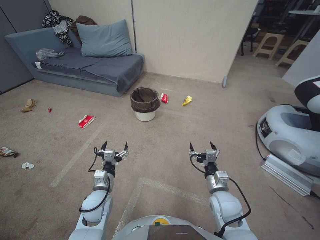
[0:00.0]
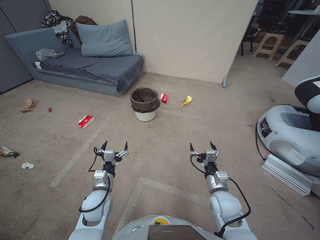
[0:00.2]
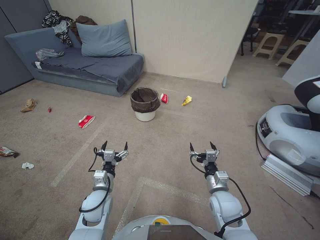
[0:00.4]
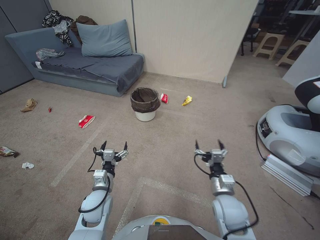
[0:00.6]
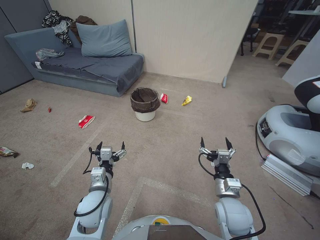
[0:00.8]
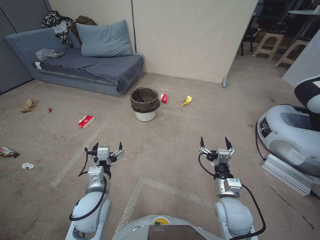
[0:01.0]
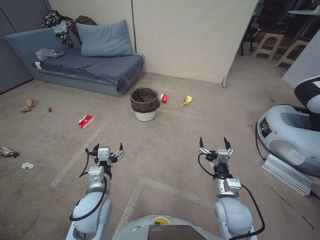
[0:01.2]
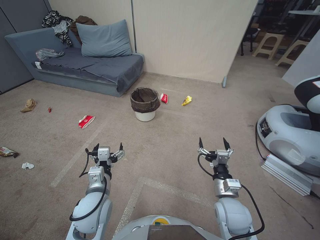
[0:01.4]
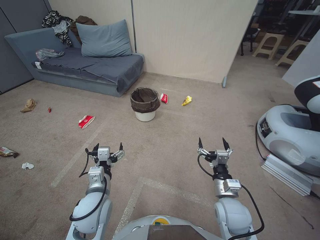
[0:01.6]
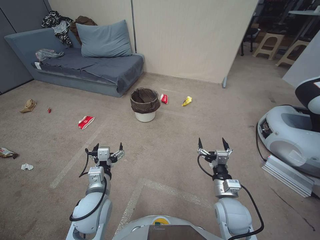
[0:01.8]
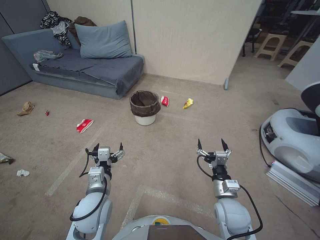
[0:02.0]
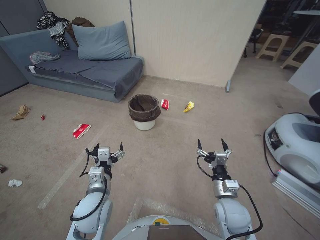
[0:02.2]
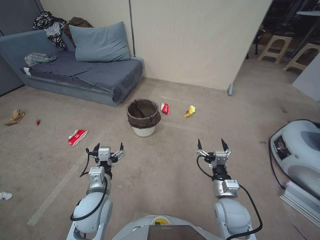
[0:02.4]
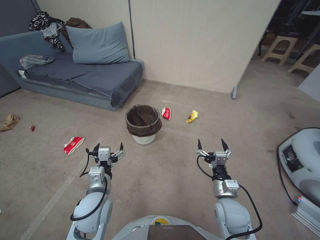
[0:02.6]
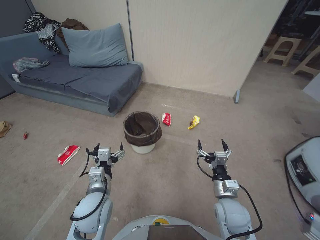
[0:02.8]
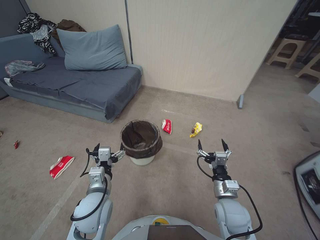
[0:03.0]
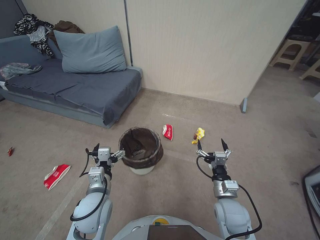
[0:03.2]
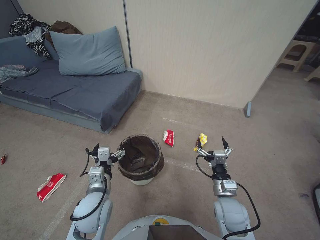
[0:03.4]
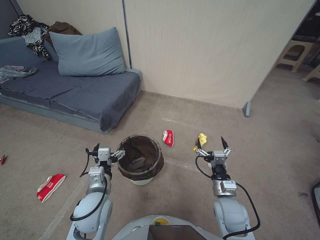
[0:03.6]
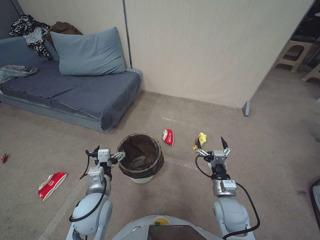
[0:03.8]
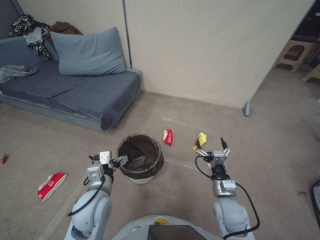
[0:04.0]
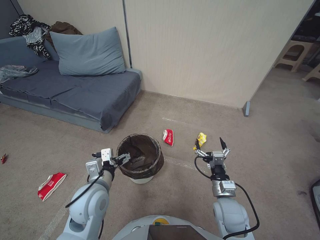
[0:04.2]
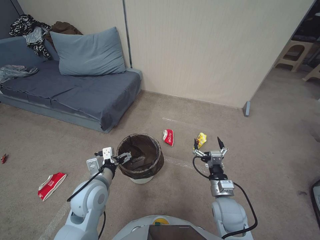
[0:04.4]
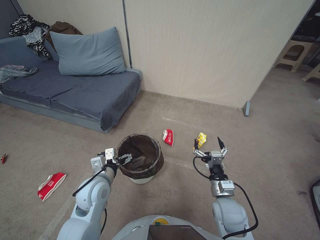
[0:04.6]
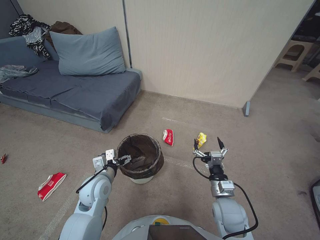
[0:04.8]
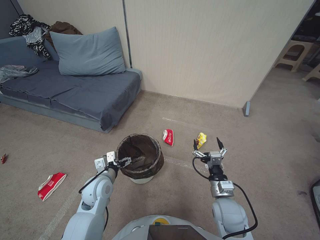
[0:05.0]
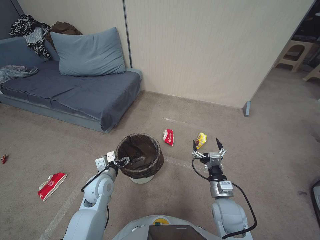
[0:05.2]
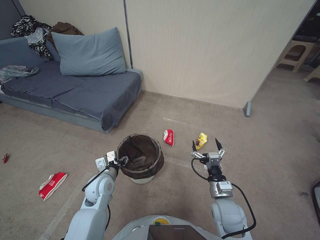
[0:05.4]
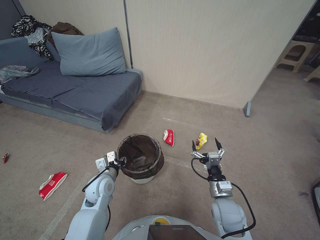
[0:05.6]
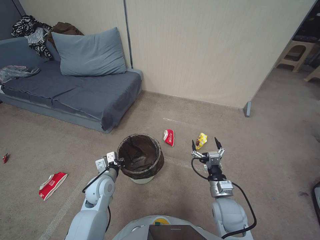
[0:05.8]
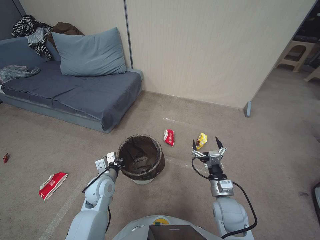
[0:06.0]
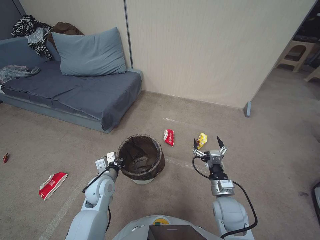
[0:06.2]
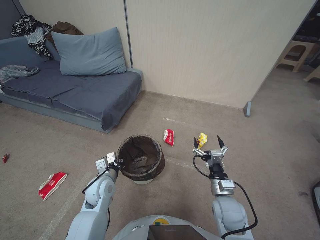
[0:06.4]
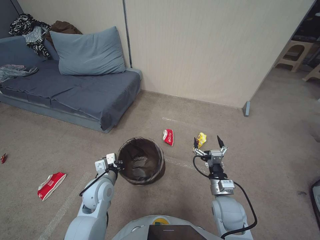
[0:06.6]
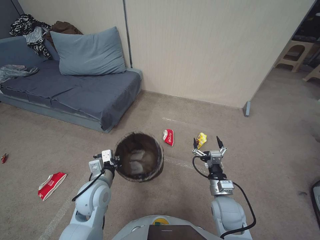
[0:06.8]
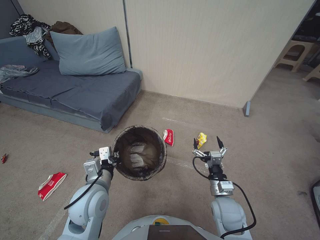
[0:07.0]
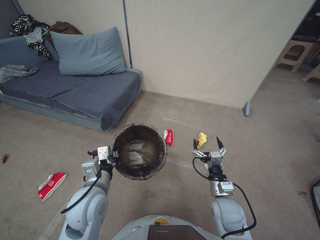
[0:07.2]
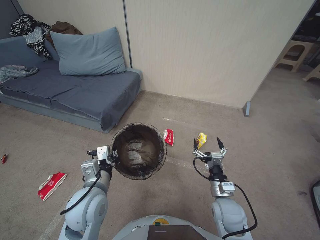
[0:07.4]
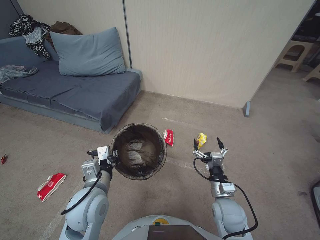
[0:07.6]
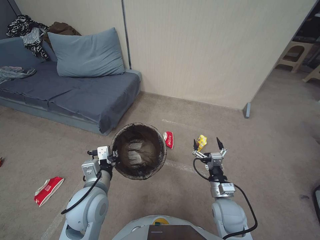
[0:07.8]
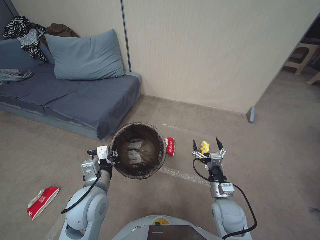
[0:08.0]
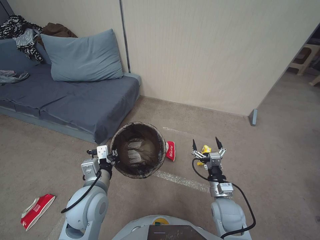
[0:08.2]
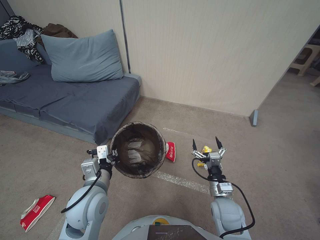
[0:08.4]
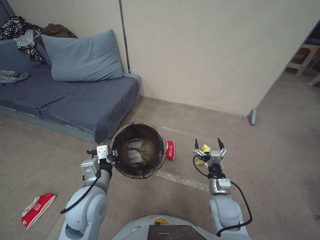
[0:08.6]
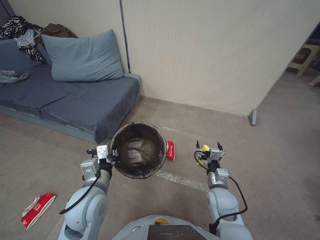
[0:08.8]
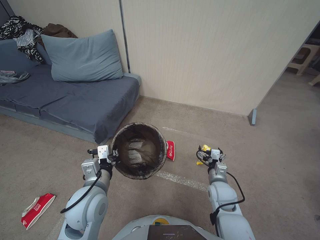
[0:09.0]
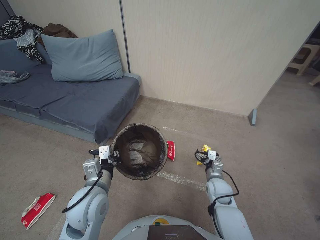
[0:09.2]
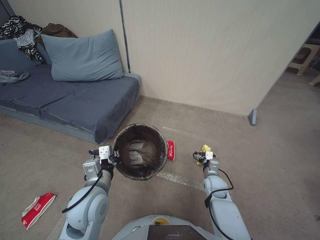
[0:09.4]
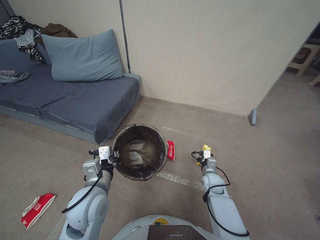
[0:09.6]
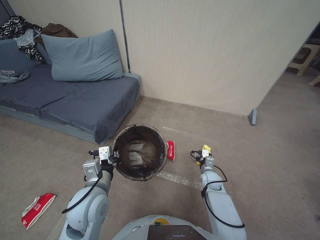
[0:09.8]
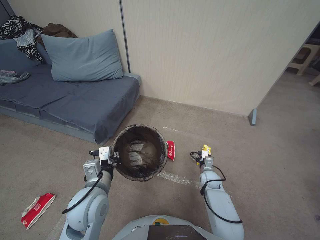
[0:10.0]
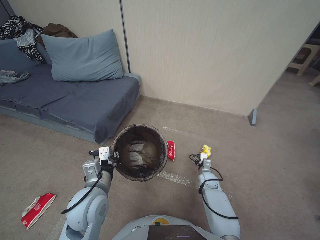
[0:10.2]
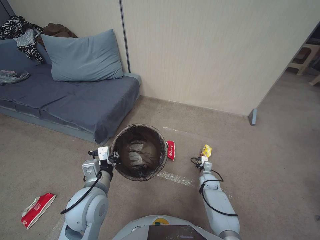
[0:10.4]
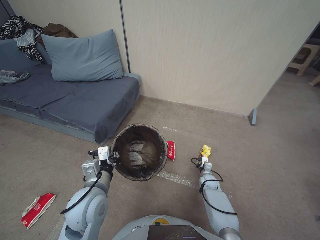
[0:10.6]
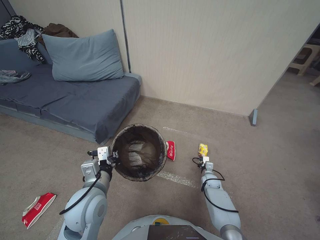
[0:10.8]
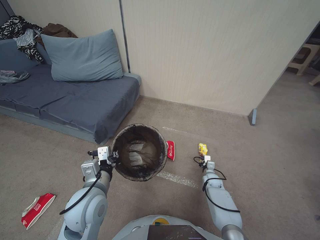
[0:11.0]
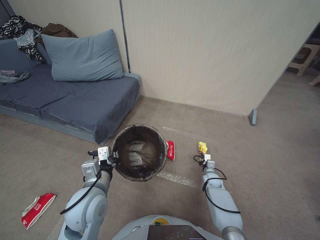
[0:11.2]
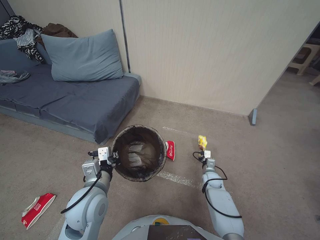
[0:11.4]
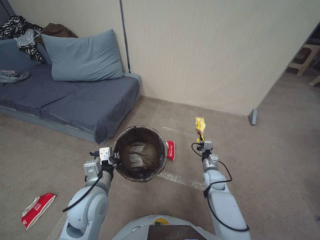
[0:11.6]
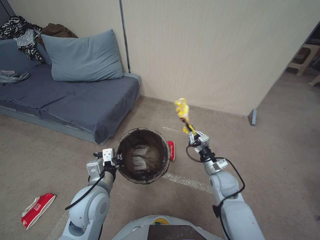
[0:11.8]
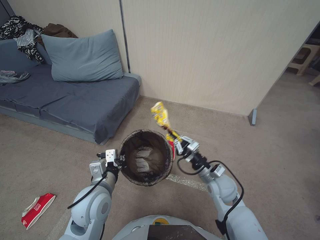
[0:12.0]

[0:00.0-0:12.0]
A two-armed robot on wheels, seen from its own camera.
Task of the whole recording: Pick up the trash bin, then pick up the garbage from the floor and place it into the trash bin.
0:04.4 to 0:06.0: The left gripper goes approximately 10 cm downward, and closes.
0:06.0 to 0:07.6: The left gripper is displaced upward and backward by approximately 15 cm.
0:07.6 to 0:09.0: The right gripper shifts roughly 5 cm forward.
0:09.0 to 0:10.4: The right gripper is displaced downward and forward by approximately 20 cm.
0:10.4 to 0:12.0: The right gripper goes approximately 15 cm upward, and closes up.

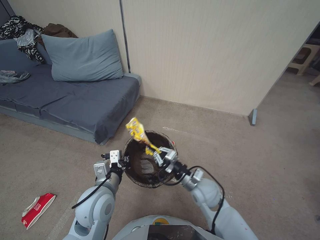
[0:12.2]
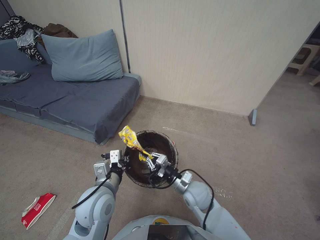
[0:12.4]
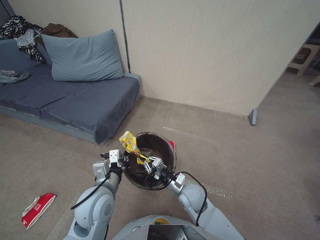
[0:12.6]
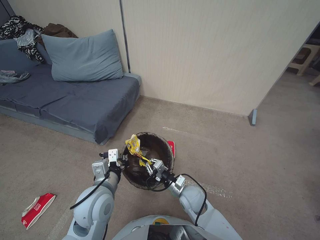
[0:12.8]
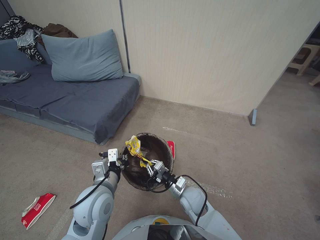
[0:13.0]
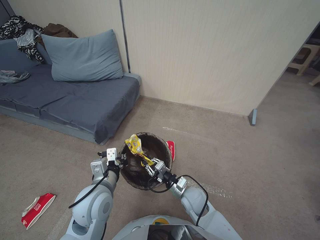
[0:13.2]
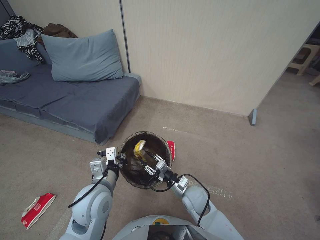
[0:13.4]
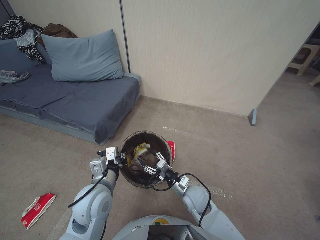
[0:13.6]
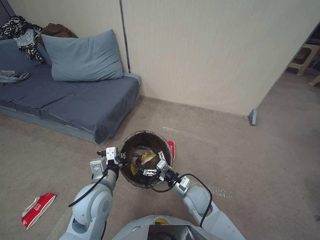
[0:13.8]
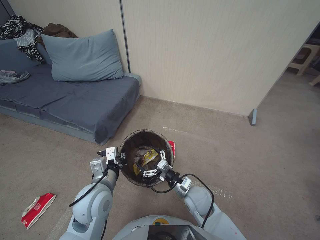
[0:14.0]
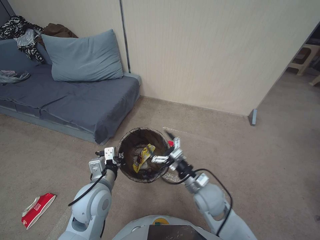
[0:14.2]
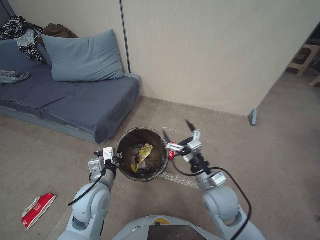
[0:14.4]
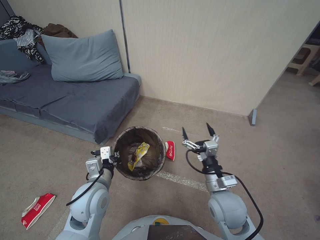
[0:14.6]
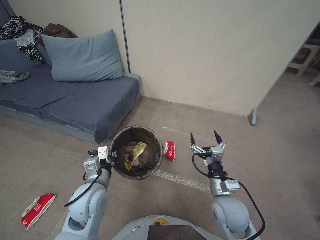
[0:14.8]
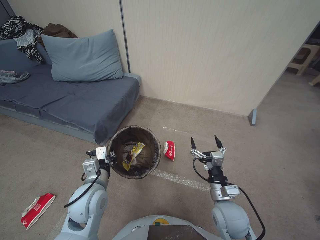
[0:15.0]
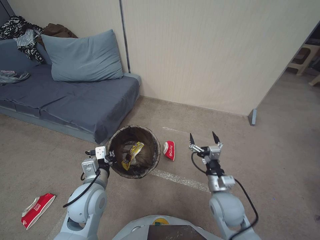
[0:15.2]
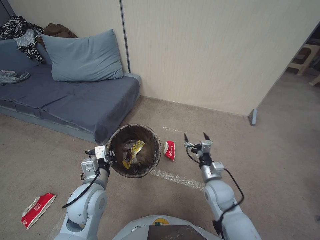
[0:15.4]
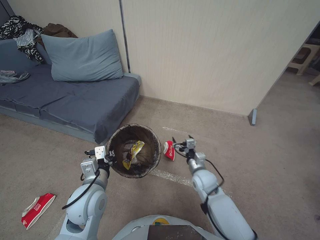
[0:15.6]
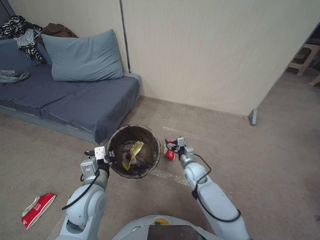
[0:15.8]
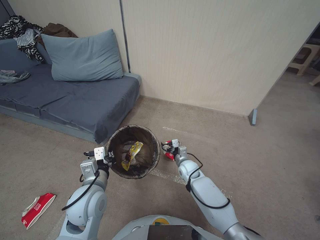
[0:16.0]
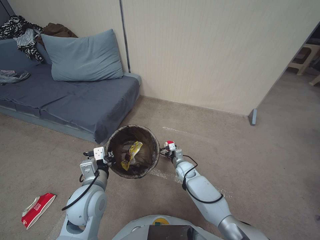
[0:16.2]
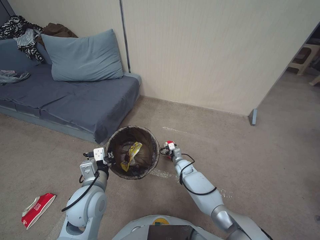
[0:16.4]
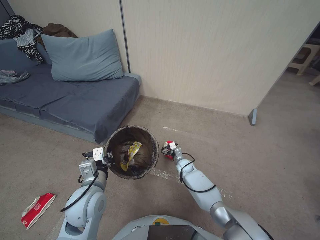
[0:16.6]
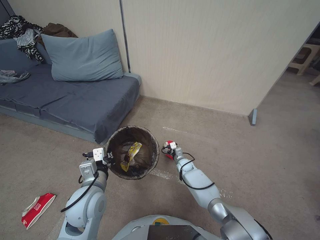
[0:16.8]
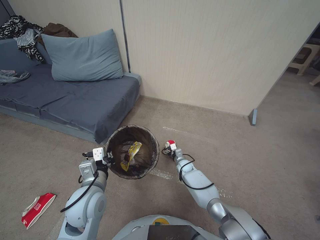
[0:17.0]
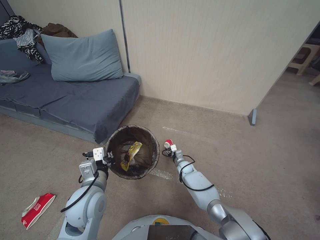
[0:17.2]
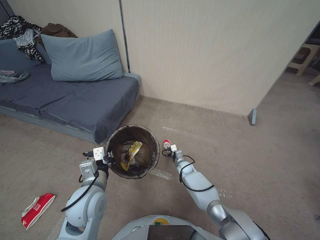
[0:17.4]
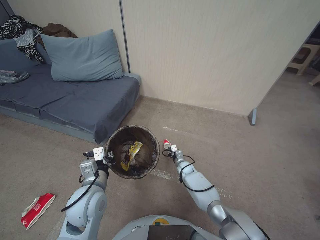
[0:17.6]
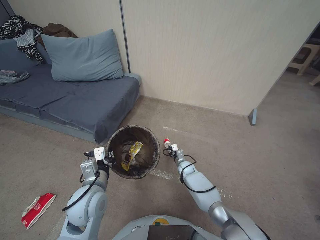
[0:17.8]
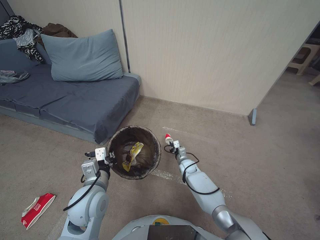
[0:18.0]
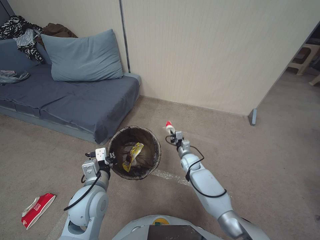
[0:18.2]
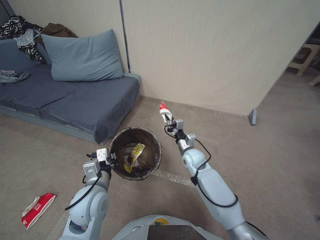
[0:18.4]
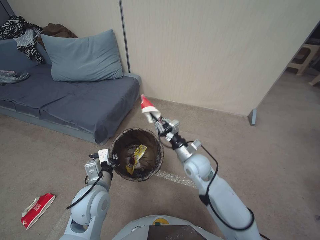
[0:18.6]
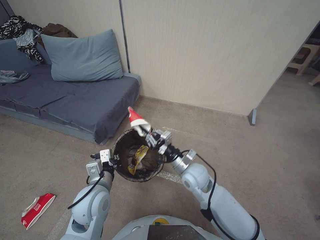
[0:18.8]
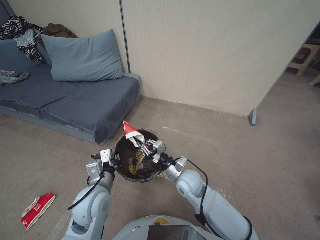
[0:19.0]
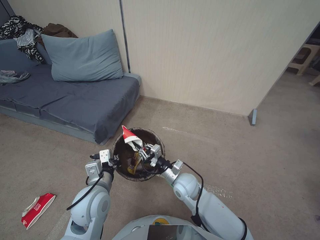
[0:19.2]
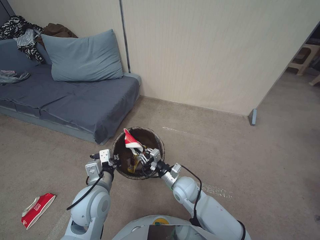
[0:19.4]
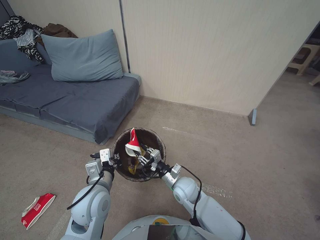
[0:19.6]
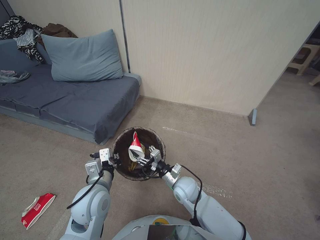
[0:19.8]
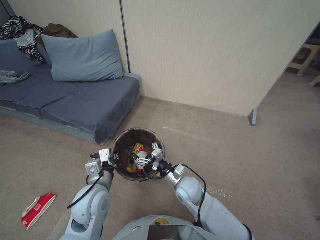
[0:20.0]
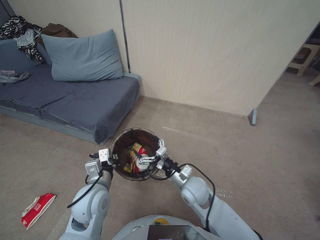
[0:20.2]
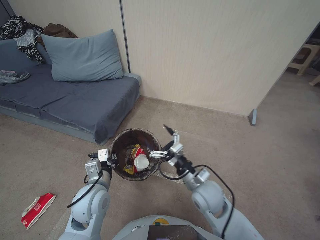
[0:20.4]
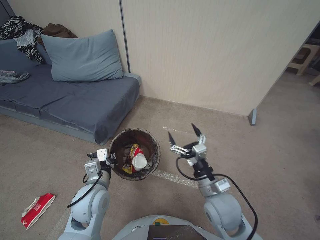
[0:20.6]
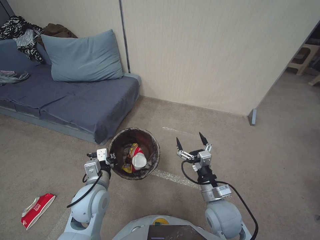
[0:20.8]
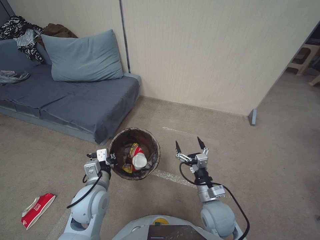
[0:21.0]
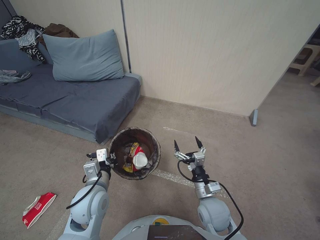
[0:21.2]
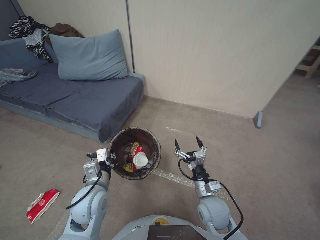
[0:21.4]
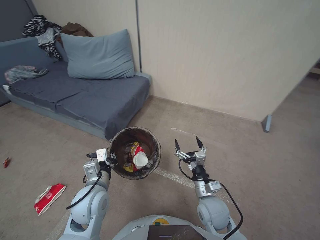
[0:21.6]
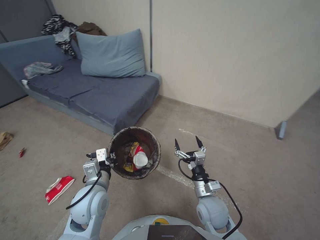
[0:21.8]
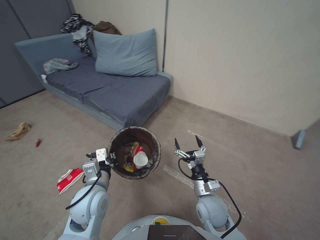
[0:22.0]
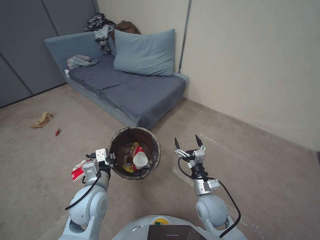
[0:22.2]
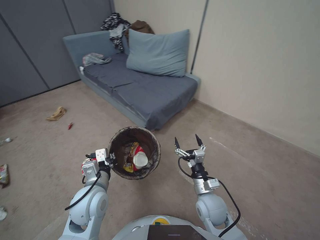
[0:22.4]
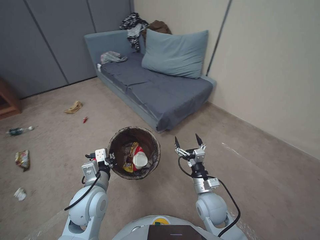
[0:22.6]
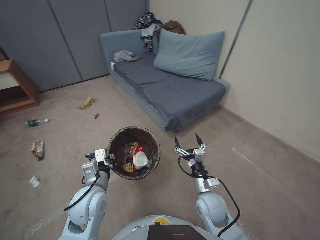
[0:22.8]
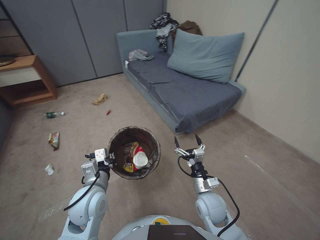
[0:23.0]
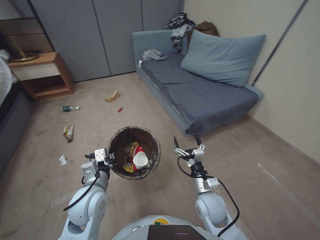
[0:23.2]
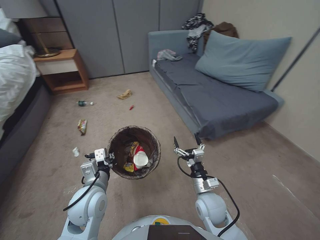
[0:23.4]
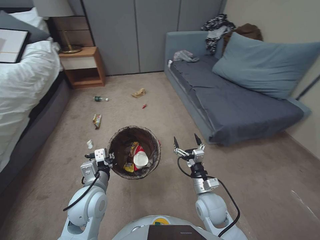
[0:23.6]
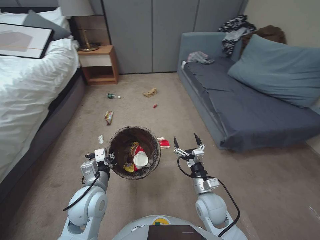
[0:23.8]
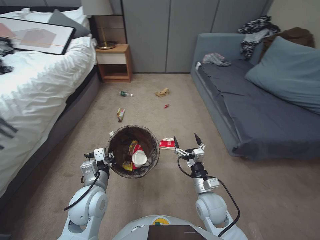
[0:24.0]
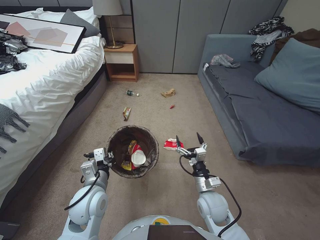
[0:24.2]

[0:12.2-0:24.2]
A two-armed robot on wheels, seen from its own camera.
Task of the whole recording: Pick up the trash bin, then pick up the garbage from the floor and place it into the trash bin.
0:12.2 to 0:13.8: The right gripper goes approximately 10 cm downward and to the left, and opens its fingers.
0:13.8 to 0:15.2: The right gripper heads upward, to the right and backward, covering about 10 cm.
0:15.2 to 0:16.6: The right gripper heads forward and downward, covering some 30 cm.
0:16.6 to 0:18.2: The right gripper closes up.
0:18.2 to 0:19.8: The right gripper heads upward, backward and to the left, covering roughly 20 cm, and opens.
0:19.8 to 0:21.2: The right gripper goes roughly 10 cm backward and to the right, moves some 10 cm upward and comes back, and opens.
